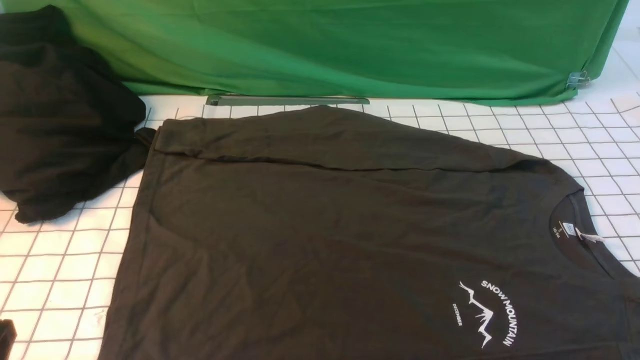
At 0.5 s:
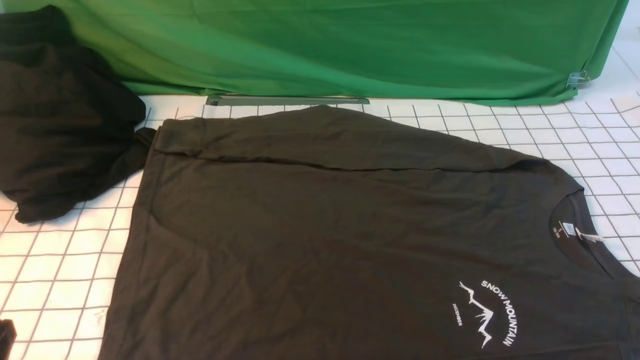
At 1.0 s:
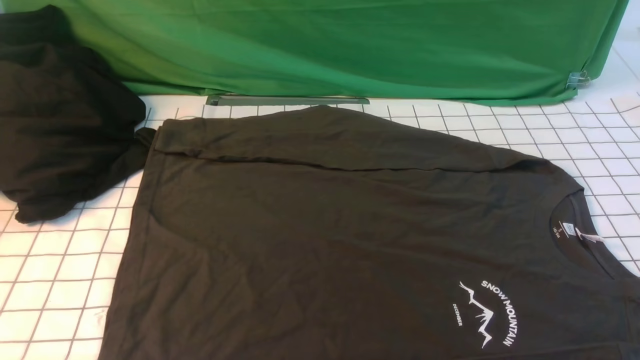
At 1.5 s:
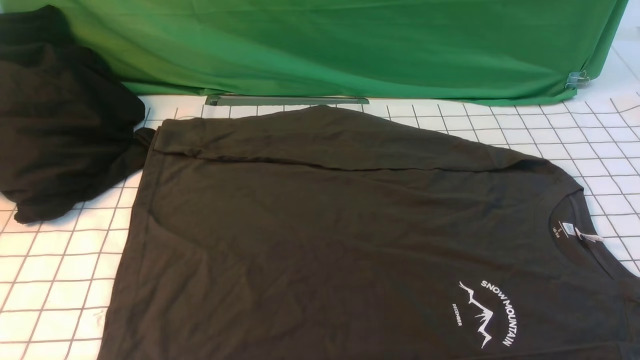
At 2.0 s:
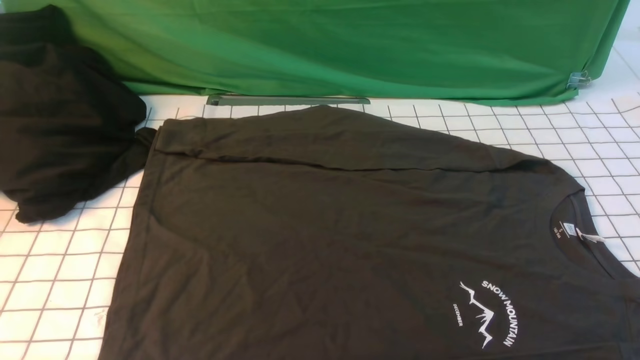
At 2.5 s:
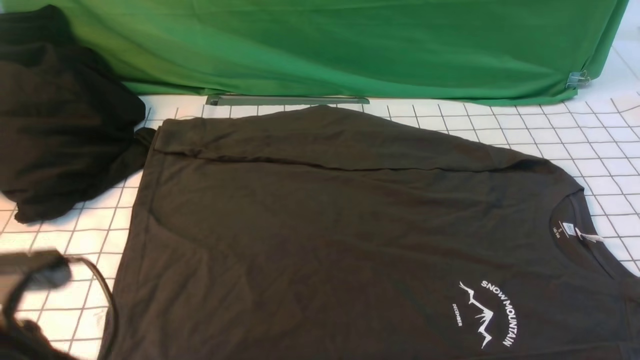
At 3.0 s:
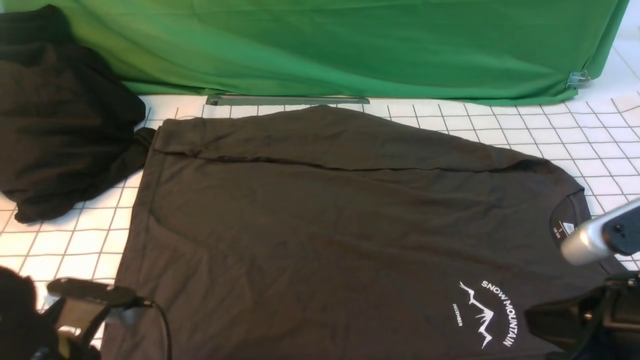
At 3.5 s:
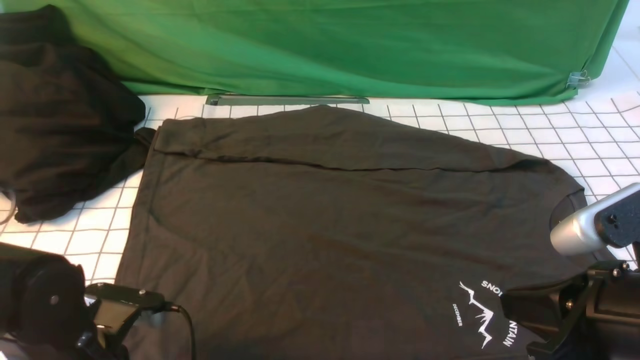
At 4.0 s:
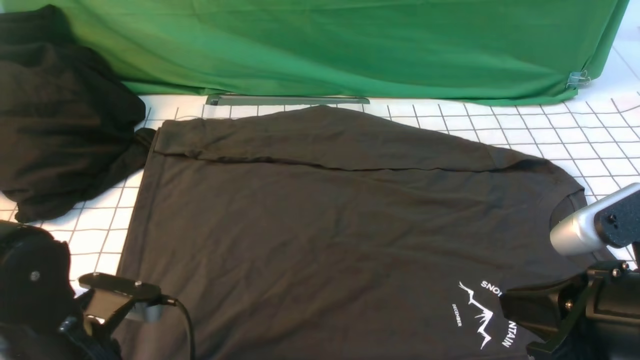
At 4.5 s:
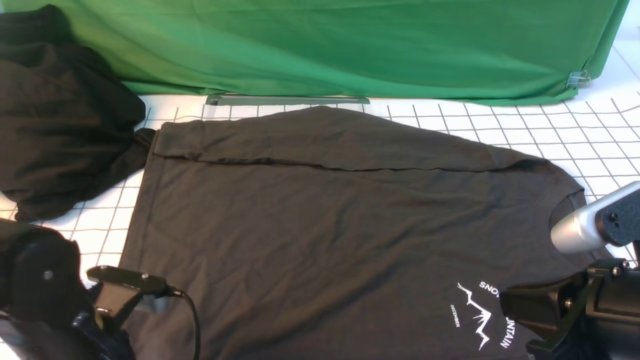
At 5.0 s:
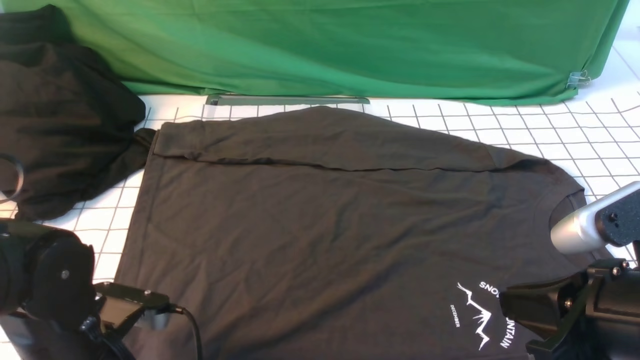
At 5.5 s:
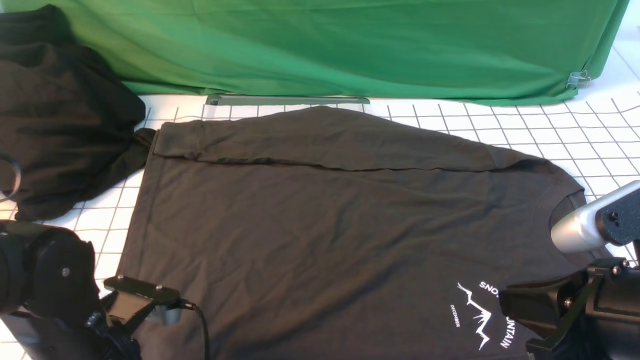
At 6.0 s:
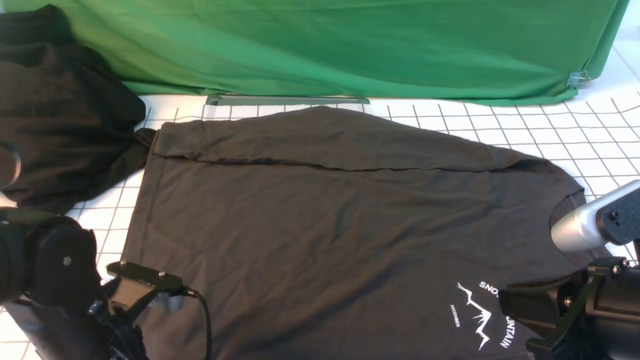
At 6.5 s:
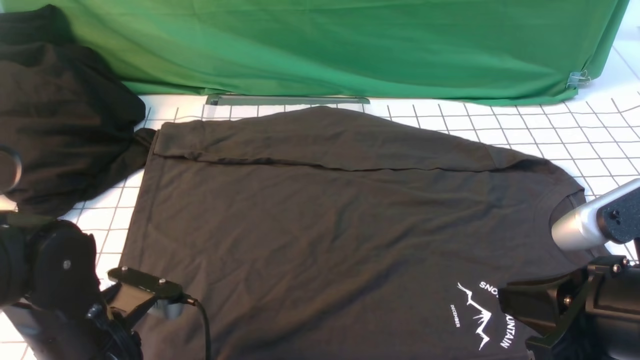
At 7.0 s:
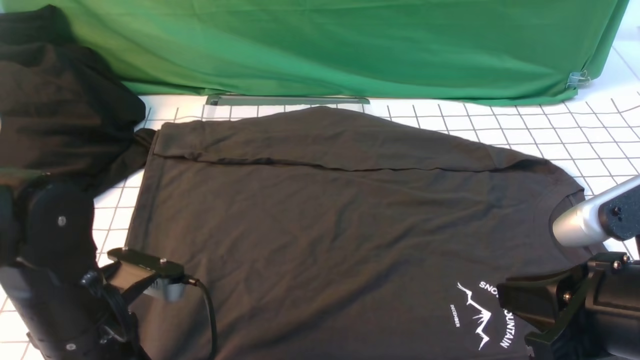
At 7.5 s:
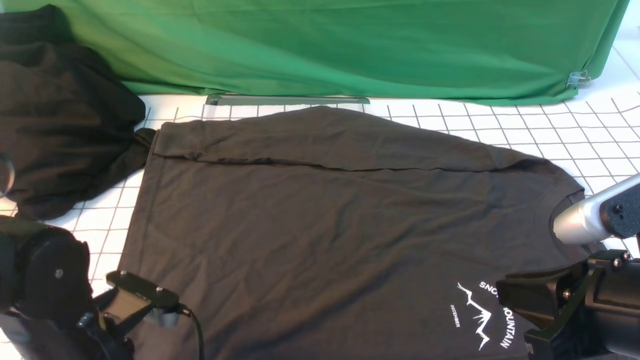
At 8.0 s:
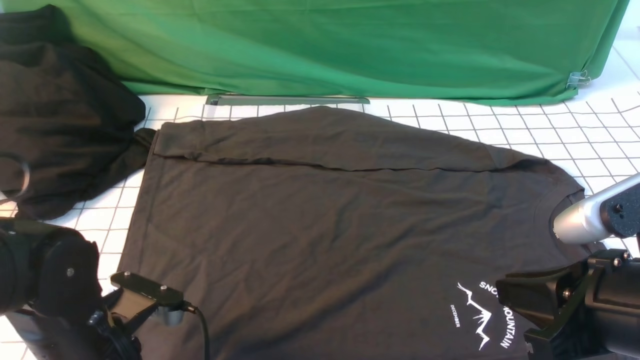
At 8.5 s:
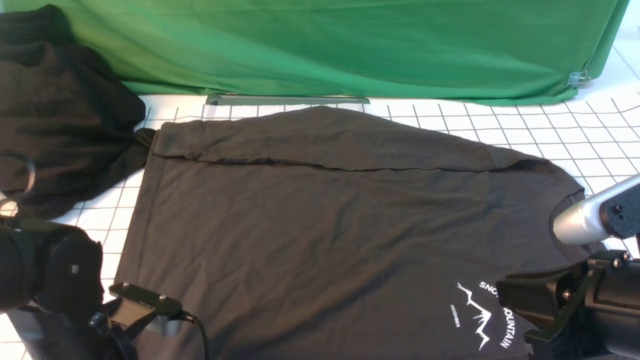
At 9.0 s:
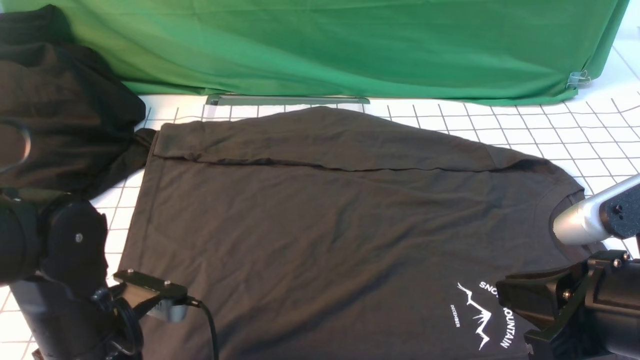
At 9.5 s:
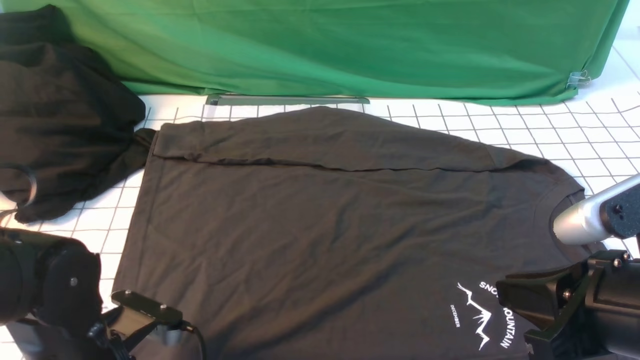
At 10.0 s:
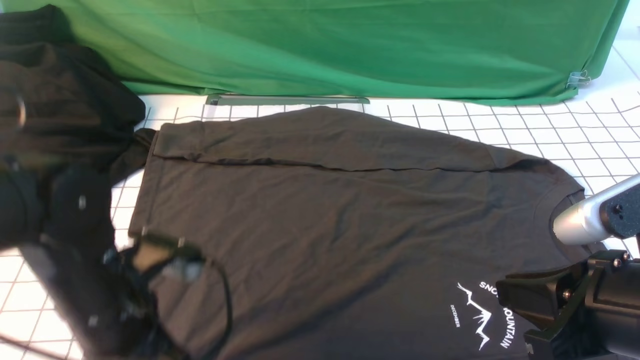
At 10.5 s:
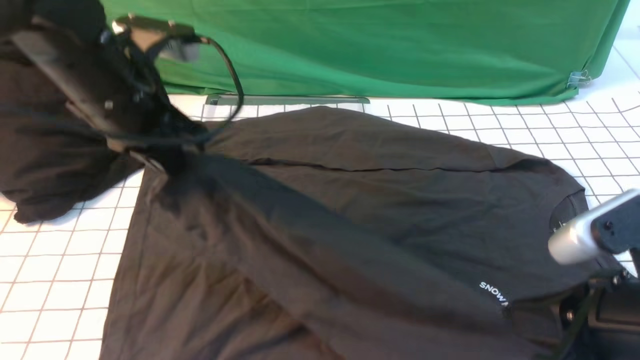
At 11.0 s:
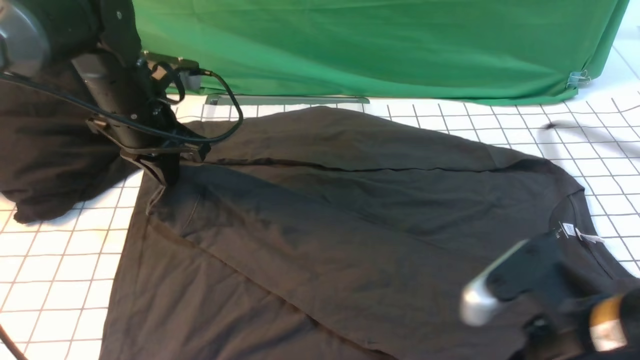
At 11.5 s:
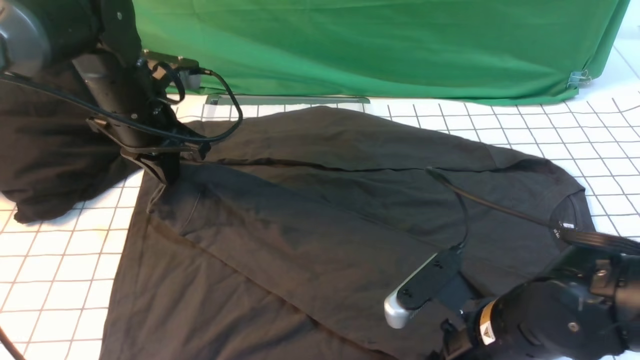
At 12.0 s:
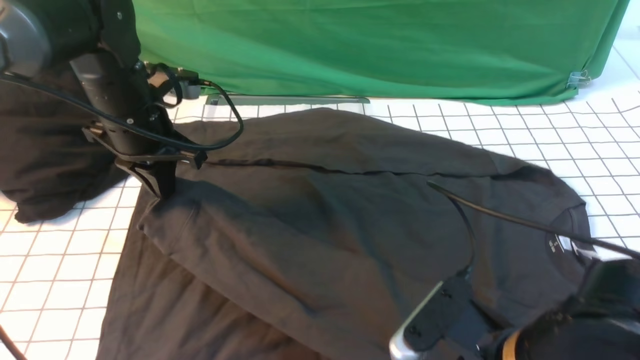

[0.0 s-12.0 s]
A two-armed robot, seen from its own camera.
Step, 0.0 to 8.5 s: use the left arm to clamp the cuff closest to it.
2.0 to 4.0 s: The right gripper is displaced to the left and forward by about 15 cm. The left gripper moves downward, some 15 cm, and opens, then closes again.
4.0 to 6.0 s: The left gripper opens.
6.0 to 8.0 s: The left gripper closes, then opens again.
8.0 to 10.0 s: The left gripper moves upward, about 5 cm, and closes its fingers.
10.0 to 12.0 s: The left gripper heads forward, covering approximately 20 cm; the right gripper goes some 10 cm downward and to the left, and opens, then closes once more.

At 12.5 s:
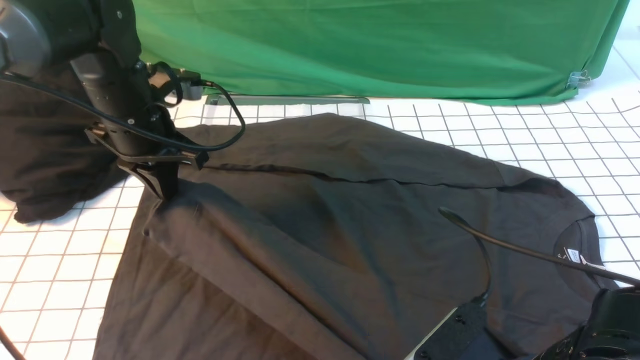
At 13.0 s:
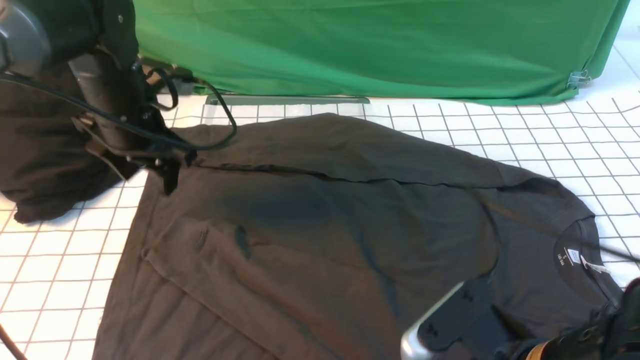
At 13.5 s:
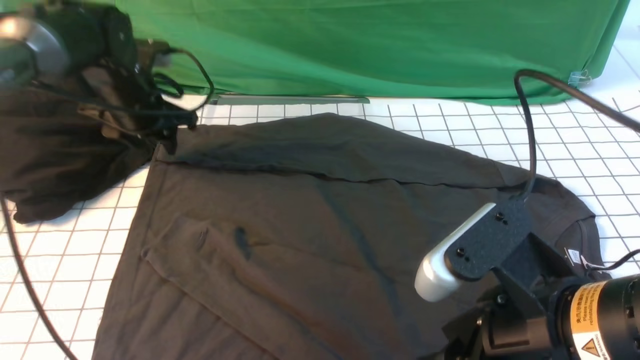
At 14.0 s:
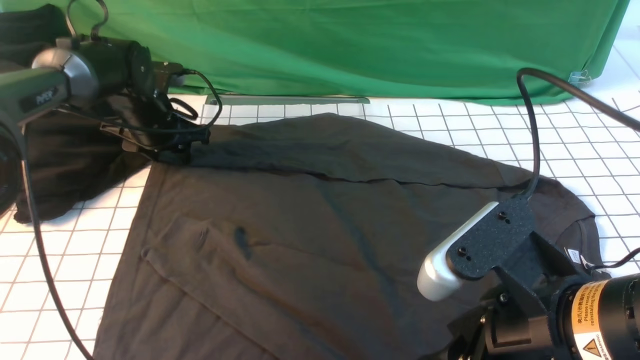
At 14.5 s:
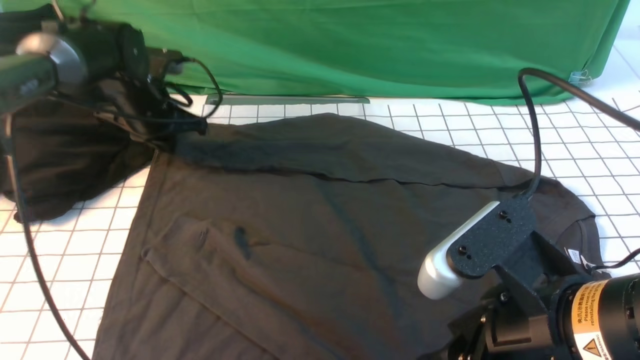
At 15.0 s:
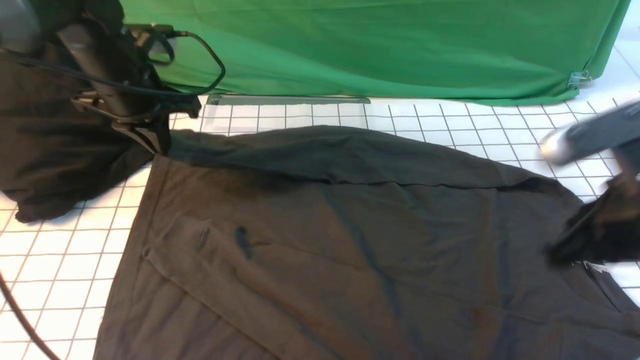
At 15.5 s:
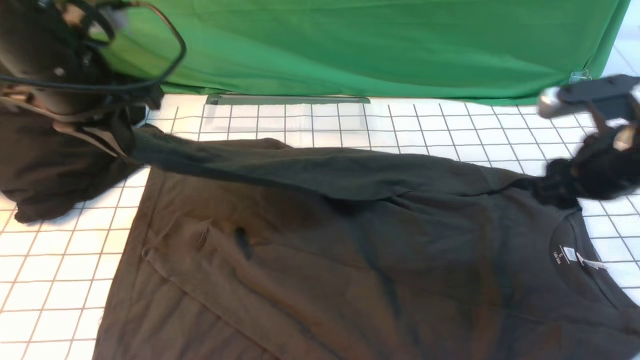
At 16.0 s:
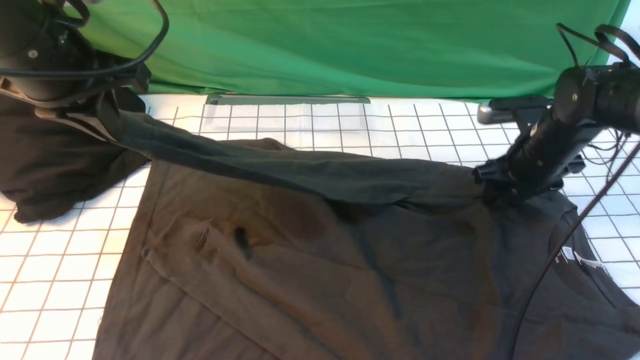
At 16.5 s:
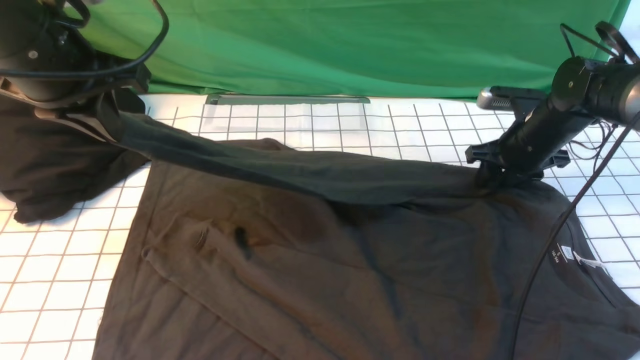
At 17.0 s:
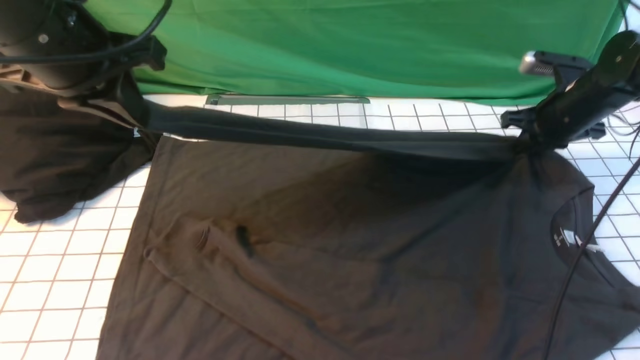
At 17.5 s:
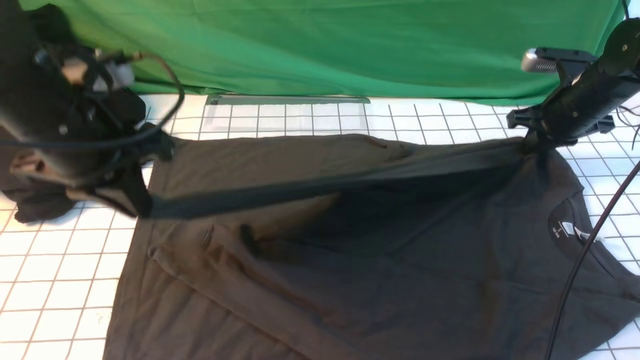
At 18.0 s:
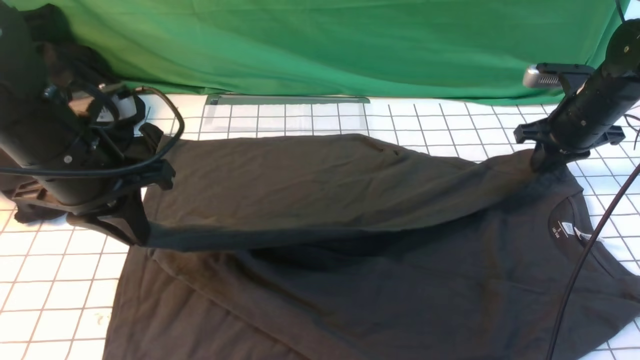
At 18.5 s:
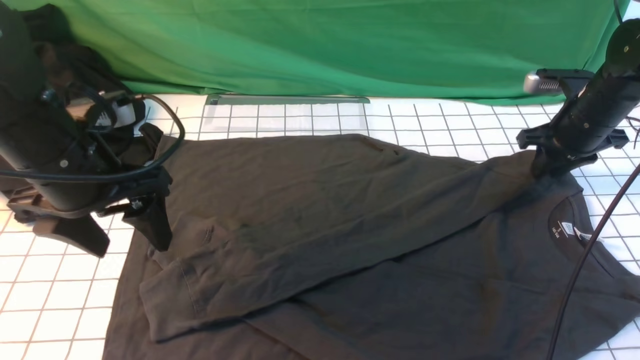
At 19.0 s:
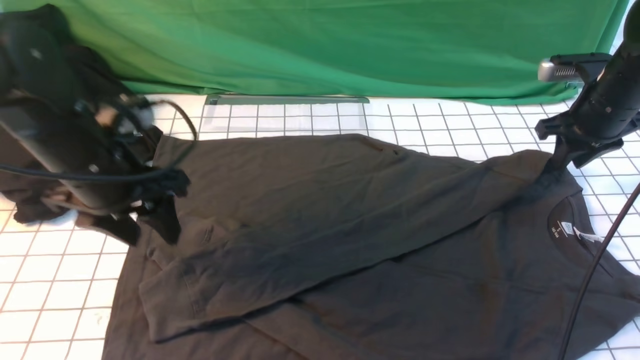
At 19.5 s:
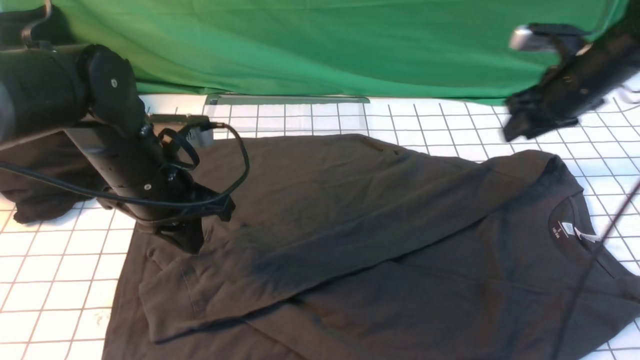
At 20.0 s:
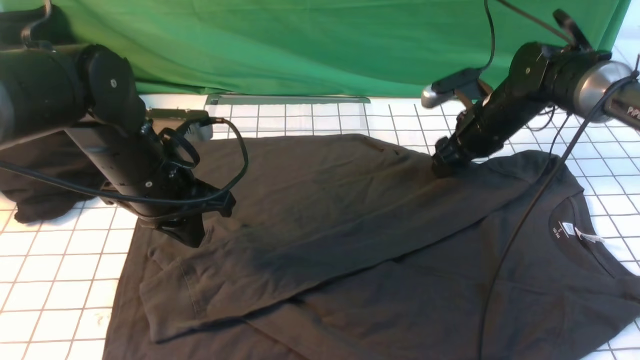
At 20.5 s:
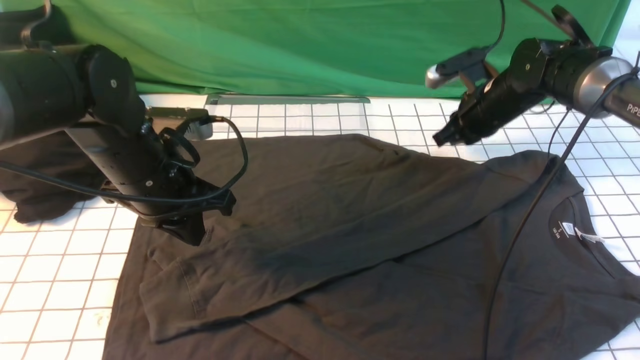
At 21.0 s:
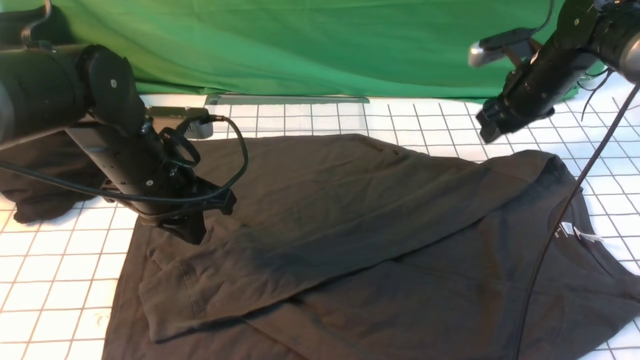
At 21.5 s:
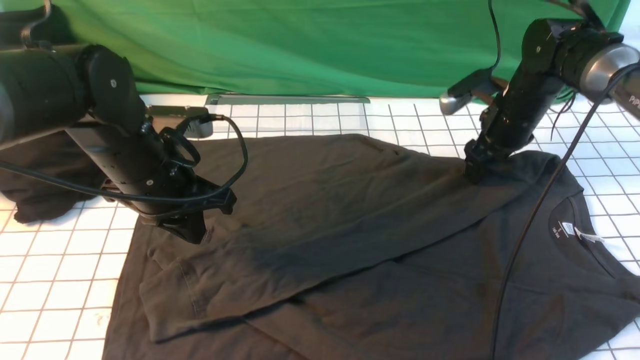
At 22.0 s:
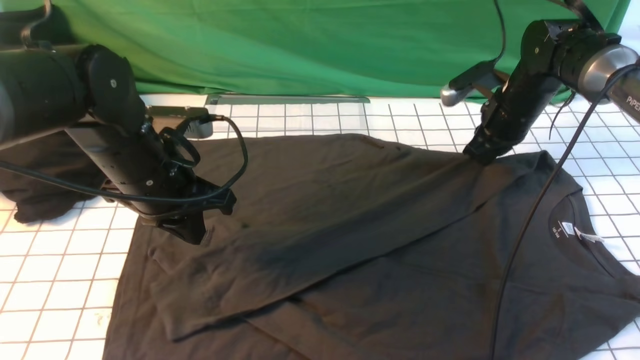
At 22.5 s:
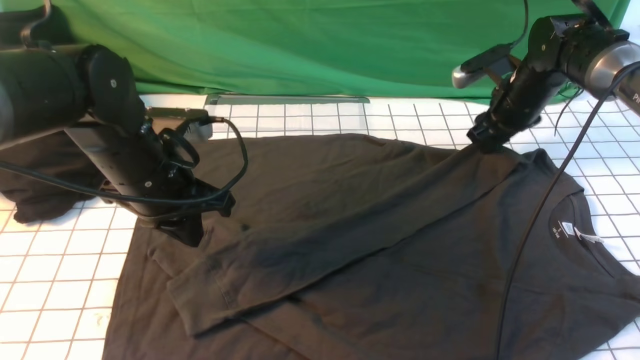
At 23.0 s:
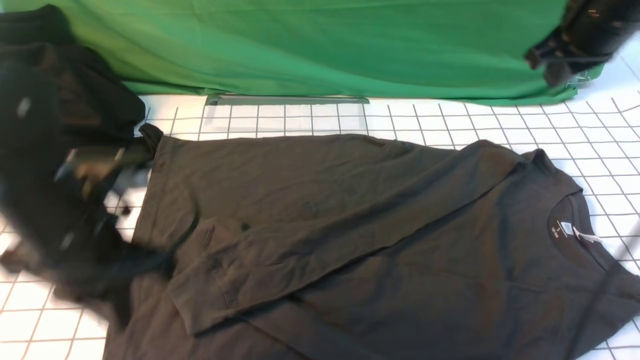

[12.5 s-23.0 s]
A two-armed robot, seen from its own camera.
Step, 13.0 to 14.0 s: use the left arm to clamp the cuff farthest from it.
Step, 14.5 to 18.0 s: use the left arm to drag and drop the cuff onto the cuff closest to the left arm.
12.5 to 14.5 s: The right gripper is displaced upward by some 10 cm; the left gripper moves forward, roughly 10 cm, and opens and closes again.
14.5 to 16.5 s: The right gripper moves forward, some 35 cm, and closes, then reopens. The left gripper heads upward and backward, covering some 25 cm.
16.5 to 19.0 s: The right gripper heads upward and to the right, covering some 10 cm, and closes, then opens again, while the left gripper is displaced downward by about 10 cm, and opens up.
19.0 to 21.0 s: The left gripper closes. Meanwhile the right gripper goes approximately 5 cm to the left, and opens up.
21.0 to 23.0 s: The left gripper heads backward, covering approximately 10 cm, while the right gripper is displaced upward and backward by approximately 15 cm, and closes up.
